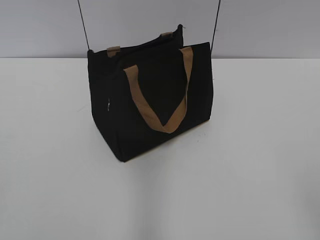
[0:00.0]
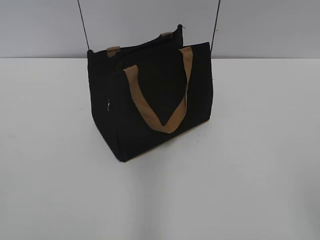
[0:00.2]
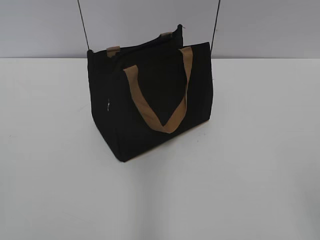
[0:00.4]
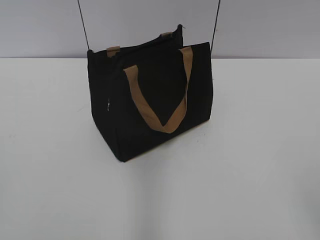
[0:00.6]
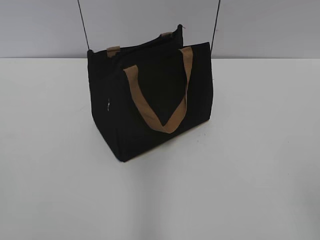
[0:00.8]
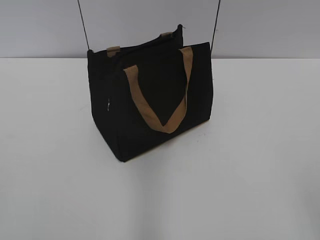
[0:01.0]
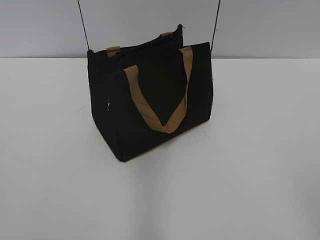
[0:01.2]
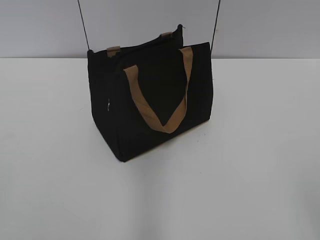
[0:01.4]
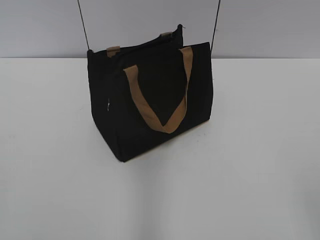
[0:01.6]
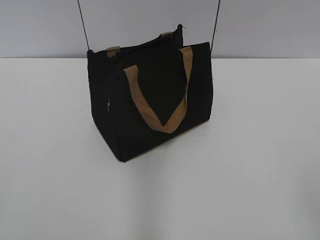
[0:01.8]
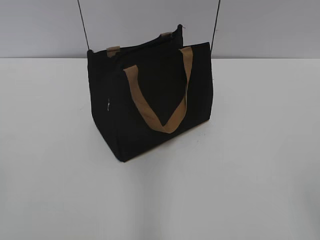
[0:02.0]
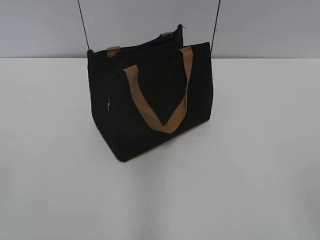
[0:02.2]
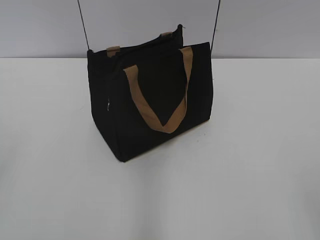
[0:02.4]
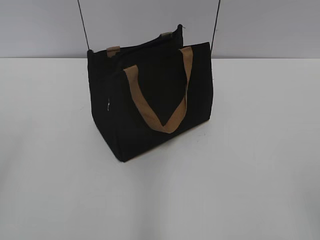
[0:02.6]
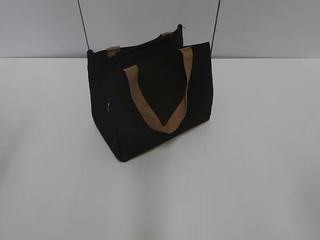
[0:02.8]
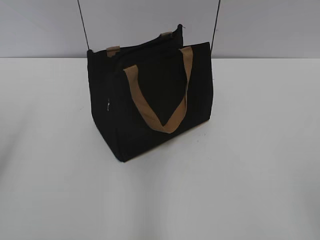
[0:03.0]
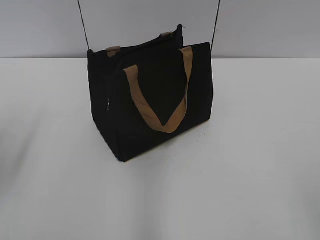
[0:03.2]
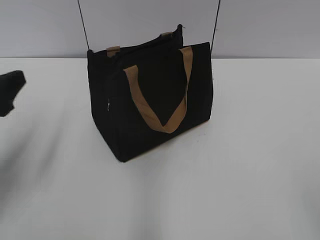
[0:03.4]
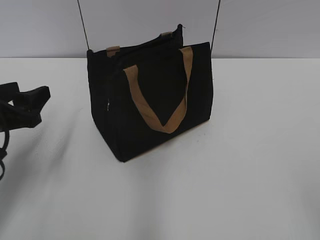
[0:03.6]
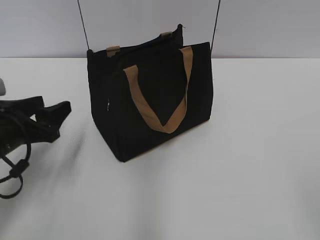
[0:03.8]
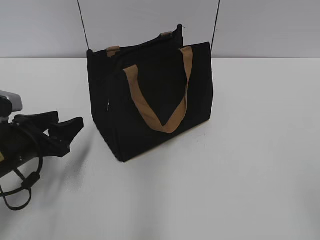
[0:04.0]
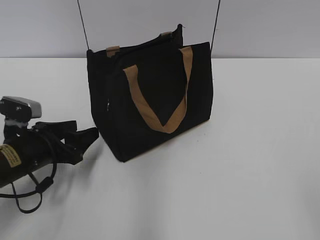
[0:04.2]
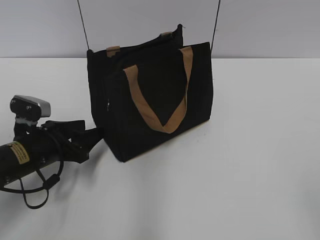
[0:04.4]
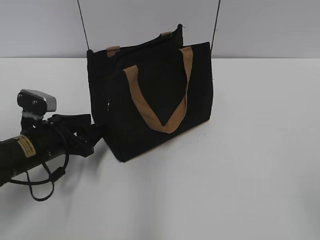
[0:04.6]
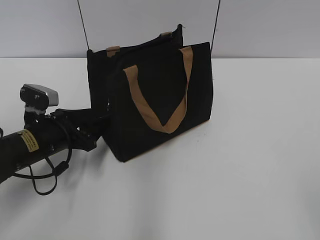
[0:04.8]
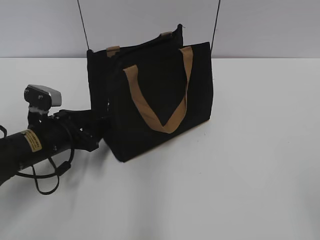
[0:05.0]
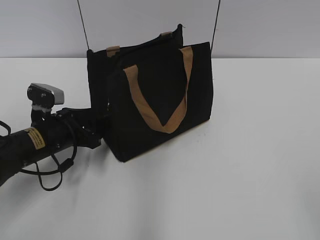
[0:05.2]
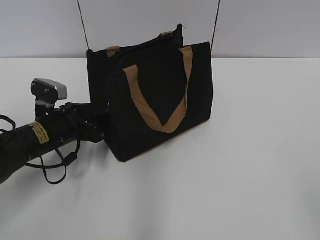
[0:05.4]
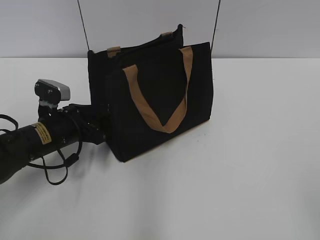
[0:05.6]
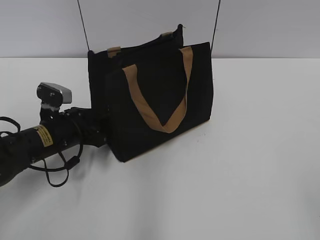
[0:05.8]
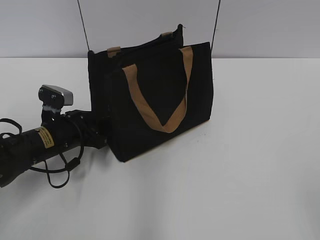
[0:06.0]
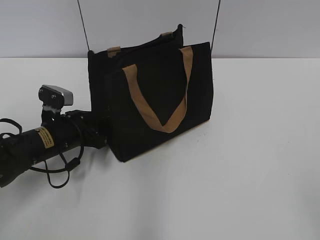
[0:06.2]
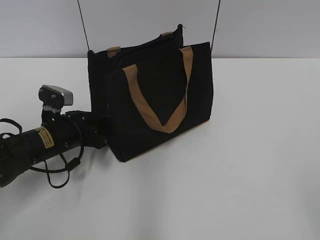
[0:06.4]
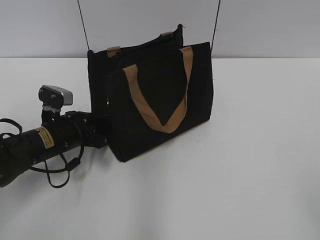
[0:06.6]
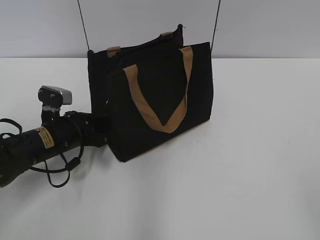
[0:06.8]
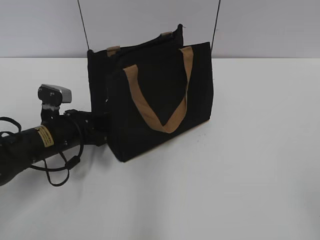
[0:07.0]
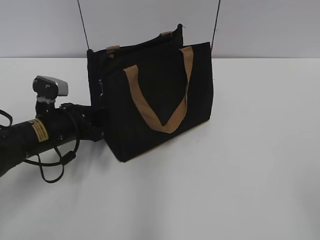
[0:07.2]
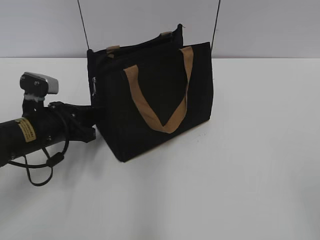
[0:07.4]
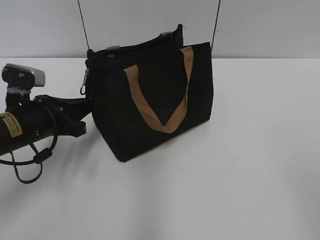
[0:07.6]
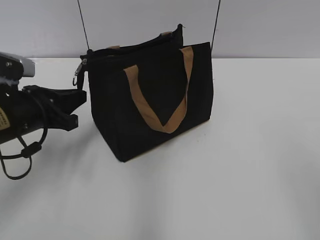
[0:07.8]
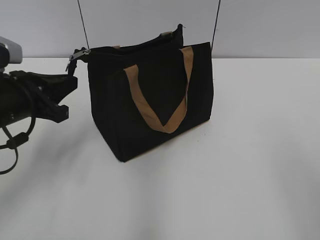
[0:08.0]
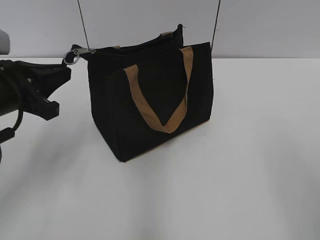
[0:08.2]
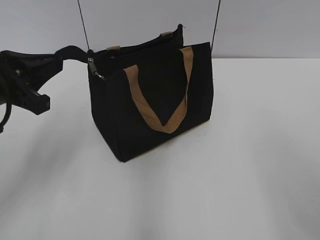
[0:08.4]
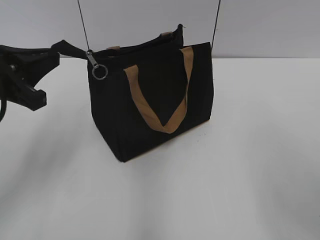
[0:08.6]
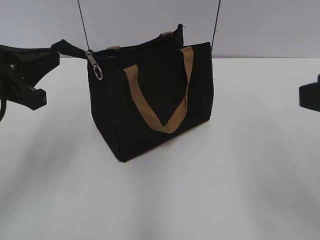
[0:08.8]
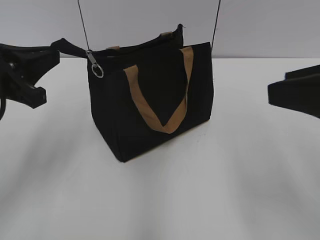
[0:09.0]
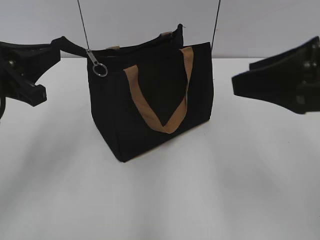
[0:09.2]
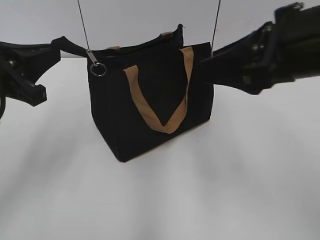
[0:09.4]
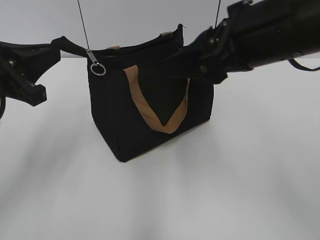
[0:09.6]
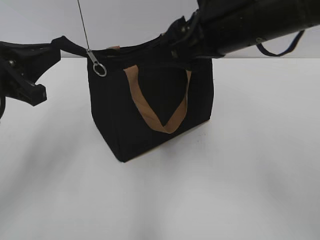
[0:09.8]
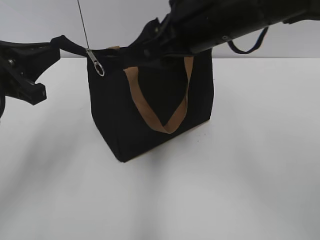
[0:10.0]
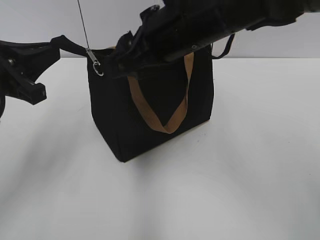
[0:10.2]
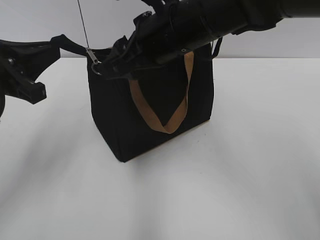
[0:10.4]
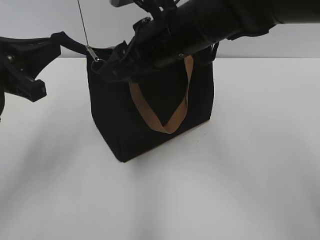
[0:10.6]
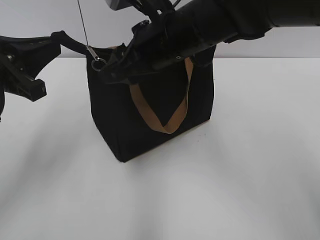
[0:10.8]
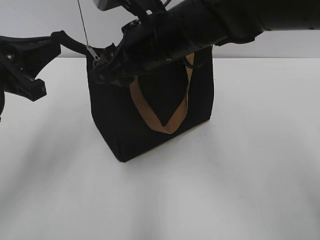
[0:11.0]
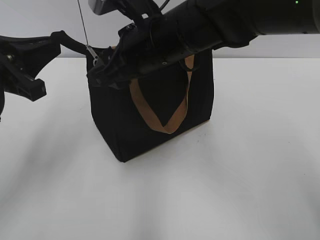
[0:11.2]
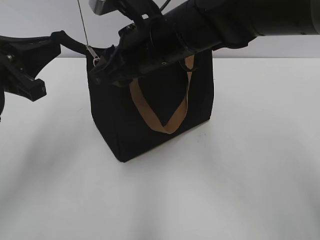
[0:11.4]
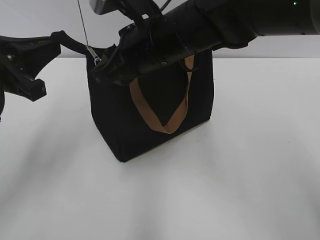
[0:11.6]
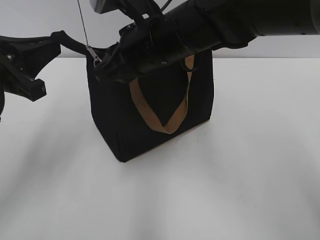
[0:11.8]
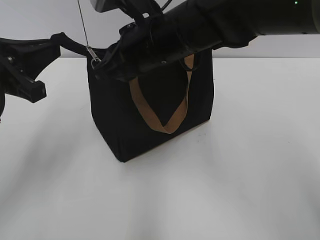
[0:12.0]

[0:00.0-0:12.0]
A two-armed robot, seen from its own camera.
3.0 to 4.4 s: The left gripper is displaced downward, forward and to the right by some 25 cm.
4.4 to 6.0 s: The left gripper shifts by about 5 cm.
6.0 to 7.6 s: The left gripper is displaced upward by some 5 cm, and closes its fingers.
7.6 to 9.0 s: The left gripper goes about 10 cm upward, while the right gripper travels forward by about 15 cm.
9.0 to 10.4 s: The right gripper goes about 25 cm to the left and forward.
10.4 to 12.0 s: The right gripper closes.

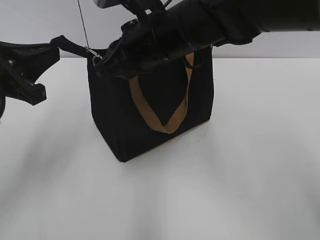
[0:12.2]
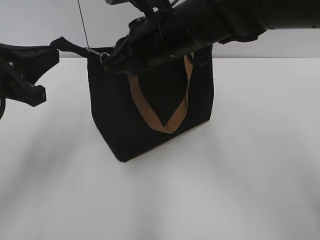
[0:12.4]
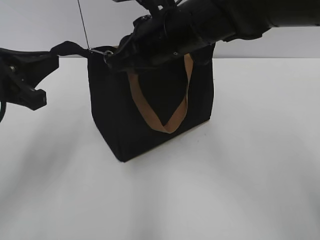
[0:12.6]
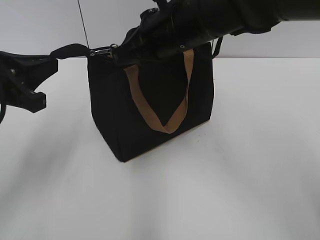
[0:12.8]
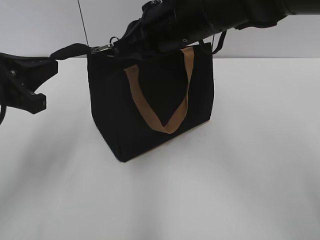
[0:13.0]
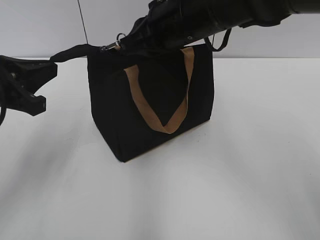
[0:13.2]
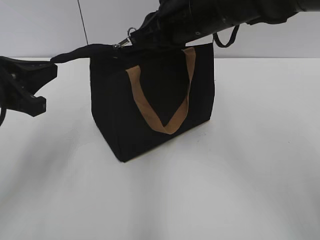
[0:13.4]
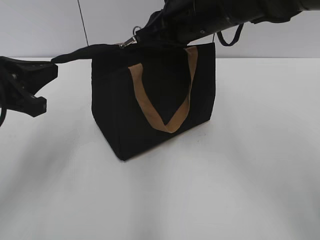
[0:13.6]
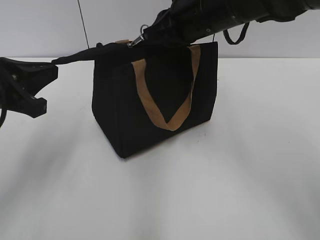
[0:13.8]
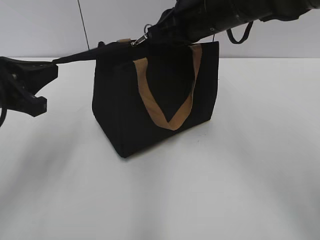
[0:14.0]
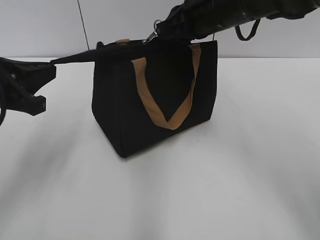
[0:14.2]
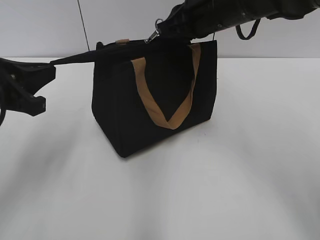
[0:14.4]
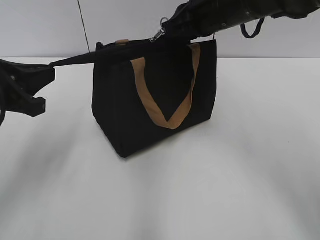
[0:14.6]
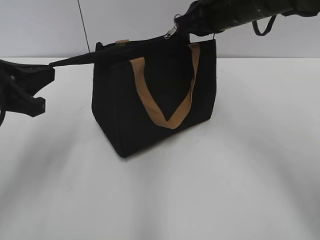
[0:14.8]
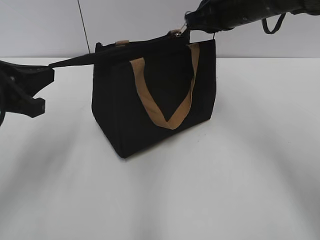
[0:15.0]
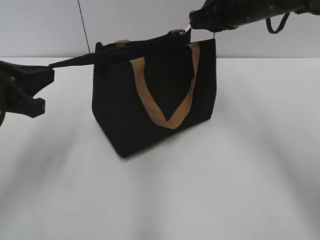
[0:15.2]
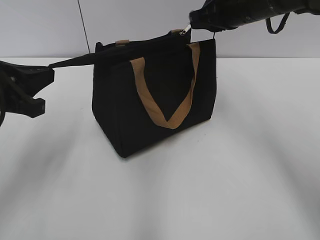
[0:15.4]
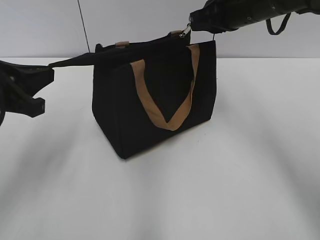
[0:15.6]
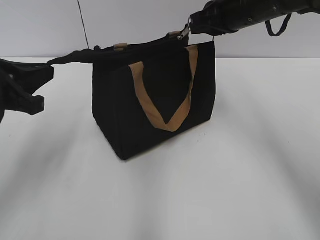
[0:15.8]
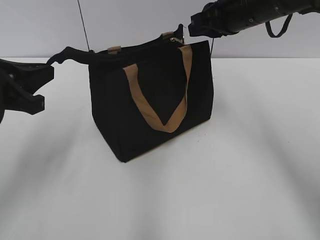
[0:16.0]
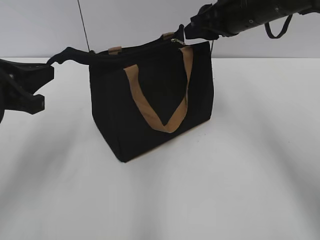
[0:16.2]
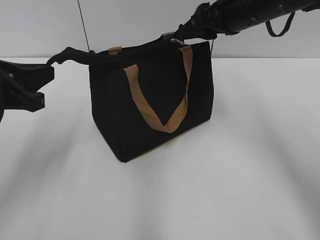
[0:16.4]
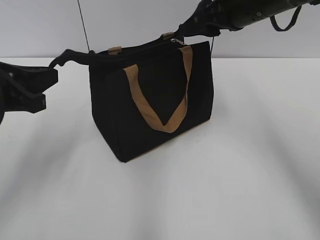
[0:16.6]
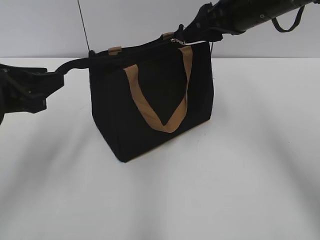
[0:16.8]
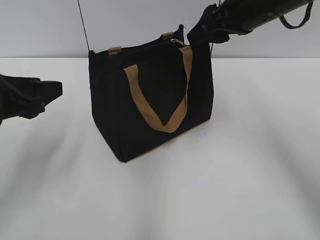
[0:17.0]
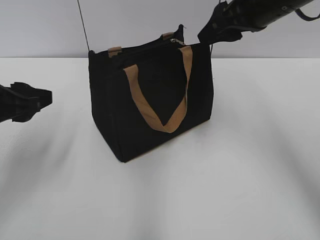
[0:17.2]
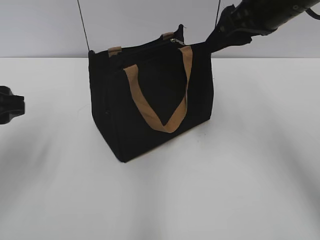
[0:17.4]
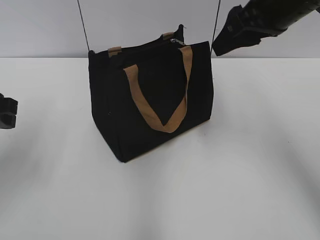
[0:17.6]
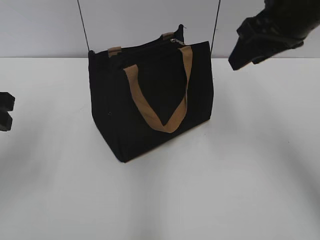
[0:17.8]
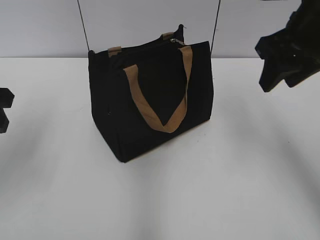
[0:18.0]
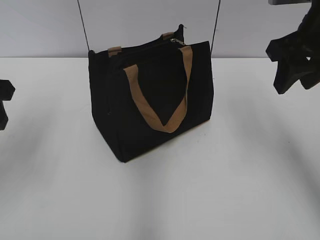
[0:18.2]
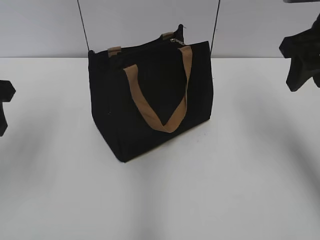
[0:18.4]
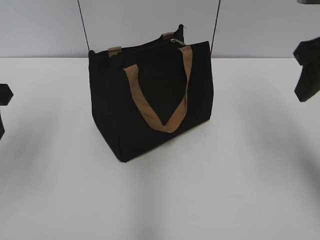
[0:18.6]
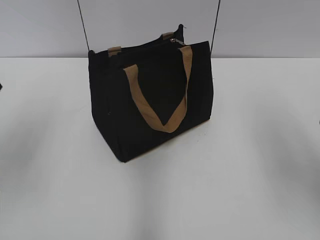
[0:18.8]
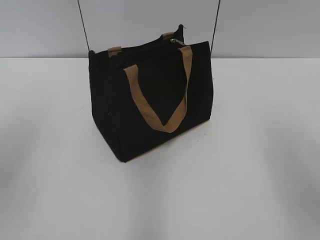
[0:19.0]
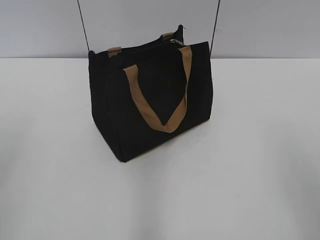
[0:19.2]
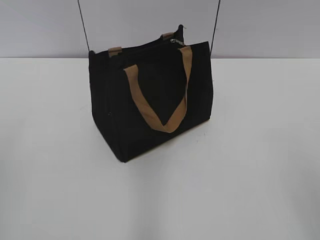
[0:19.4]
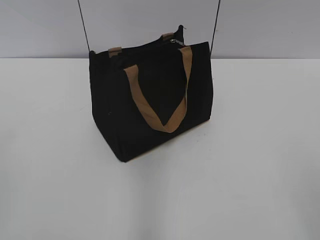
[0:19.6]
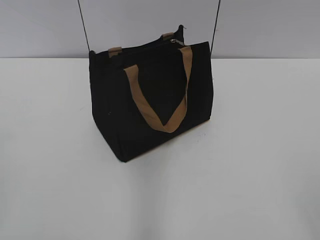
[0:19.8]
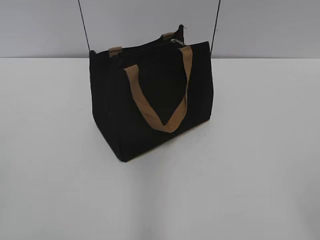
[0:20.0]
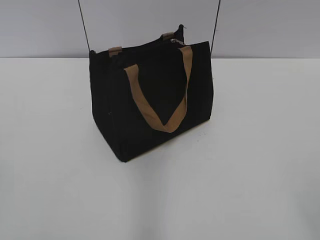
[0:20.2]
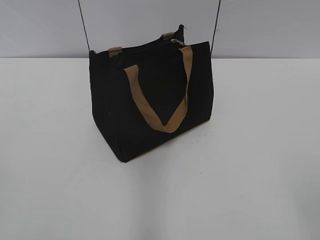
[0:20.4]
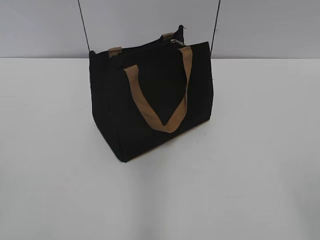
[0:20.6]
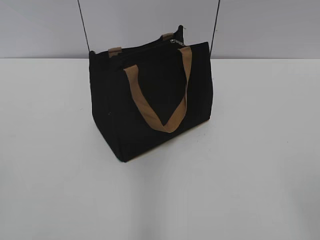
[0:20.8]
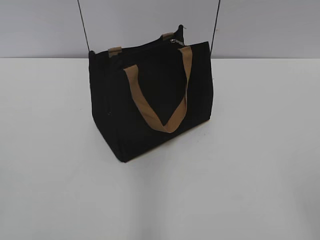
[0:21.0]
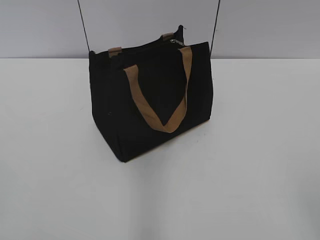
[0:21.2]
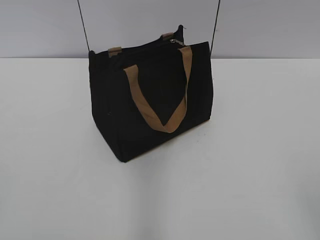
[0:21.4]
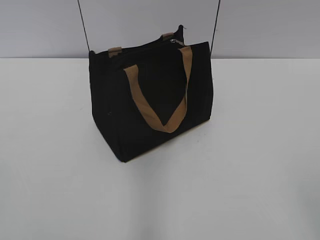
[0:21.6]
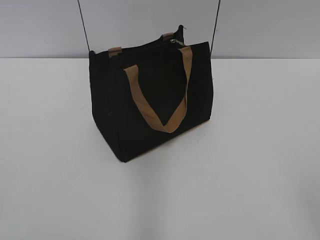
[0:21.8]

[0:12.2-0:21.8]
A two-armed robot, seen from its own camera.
Step, 12.2 to 15.8 s: Zip up the bag with your right hand.
Step, 16.2 to 16.8 s: Grab the zipper with your left hand.
12.2 to 13.8 s: The right gripper is displaced to the right by approximately 5 cm.
13.8 to 15.4 s: The right gripper travels to the right by roughly 5 cm.
15.4 to 17.0 s: The left gripper opens; the right gripper opens up.
17.0 to 18.6 s: The left gripper is displaced upward by roughly 5 cm. The right gripper travels backward and to the right by roughly 10 cm.
18.6 to 20.2 s: Both grippers move backward, about 30 cm.

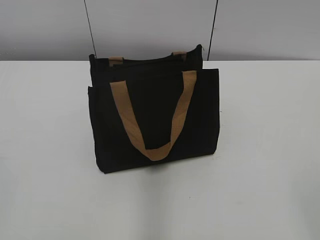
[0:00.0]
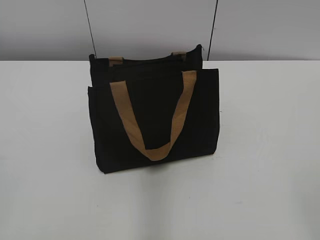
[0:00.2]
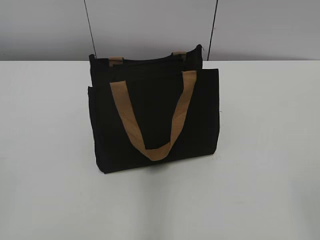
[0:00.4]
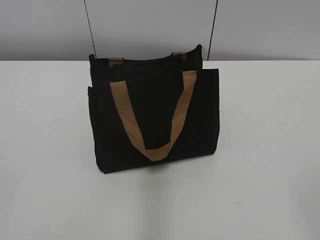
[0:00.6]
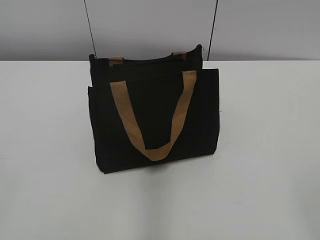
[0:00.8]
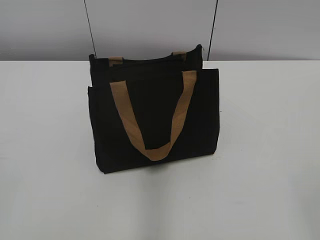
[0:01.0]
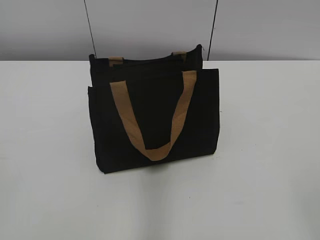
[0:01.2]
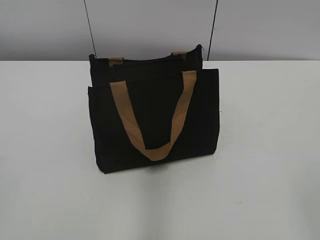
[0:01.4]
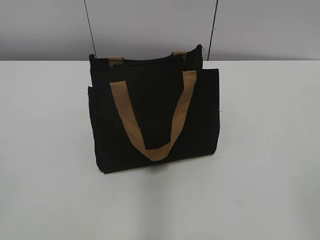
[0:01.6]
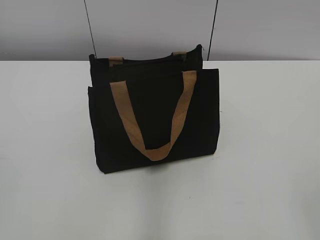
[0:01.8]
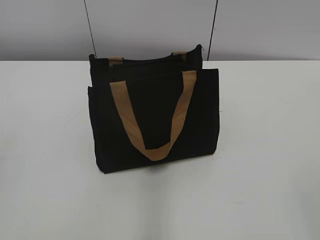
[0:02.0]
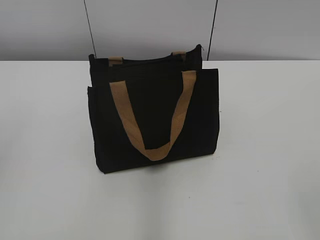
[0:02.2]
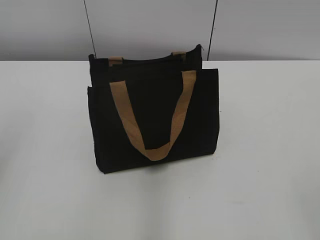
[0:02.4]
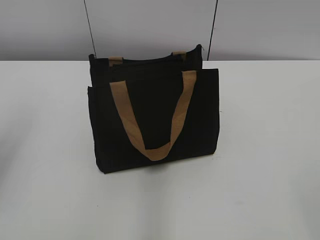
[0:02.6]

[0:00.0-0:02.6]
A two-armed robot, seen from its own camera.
1.2 to 2.6 s: The left gripper moves forward, some 15 cm.
